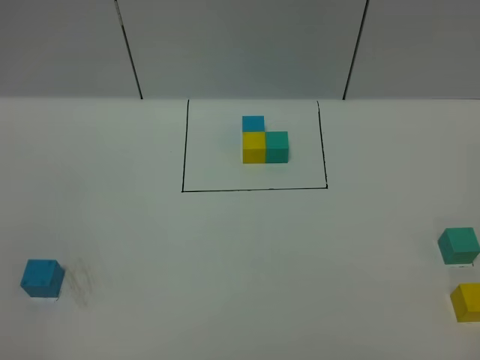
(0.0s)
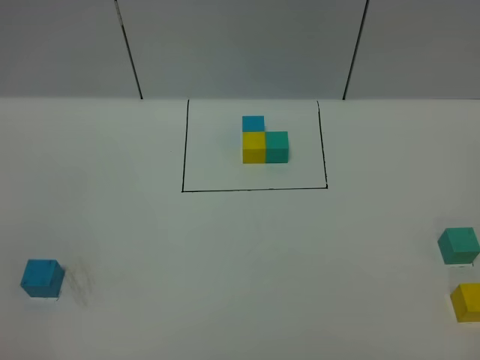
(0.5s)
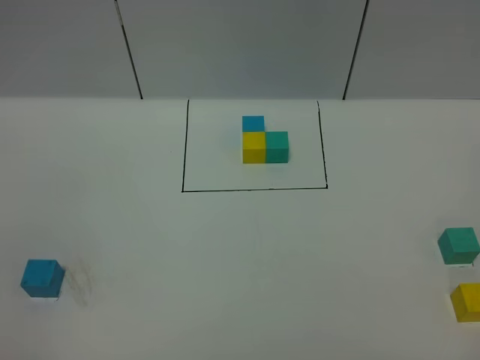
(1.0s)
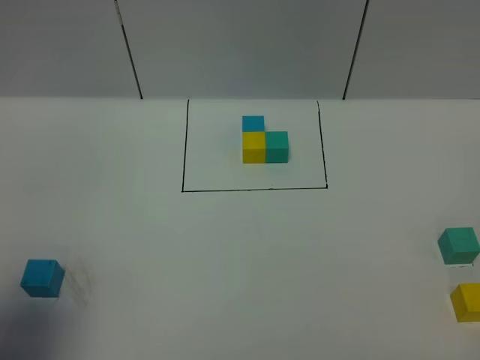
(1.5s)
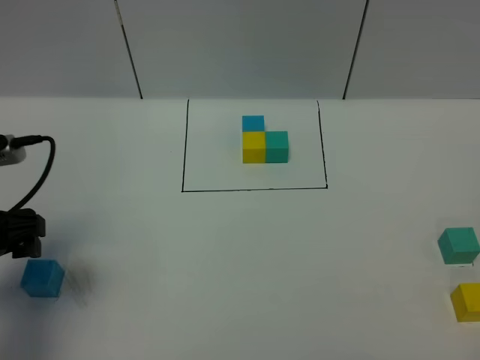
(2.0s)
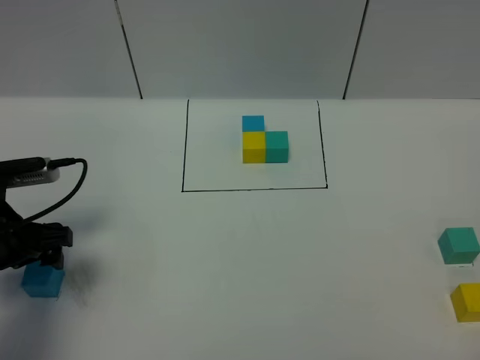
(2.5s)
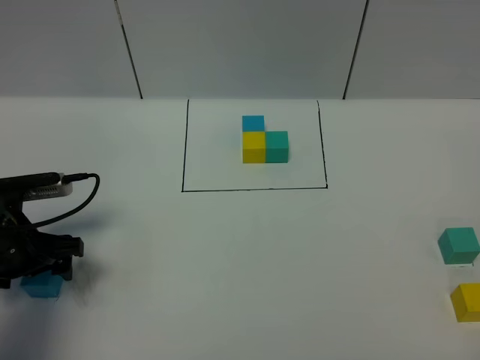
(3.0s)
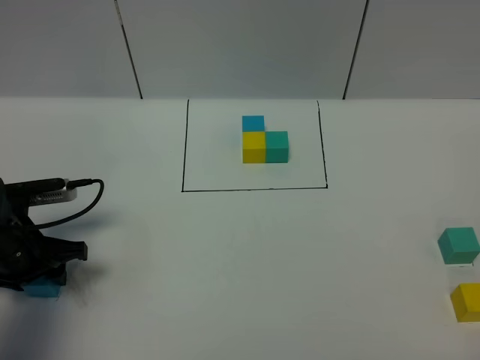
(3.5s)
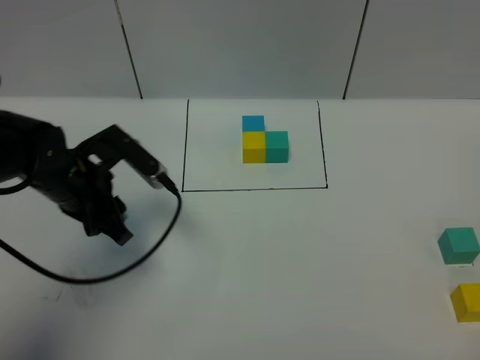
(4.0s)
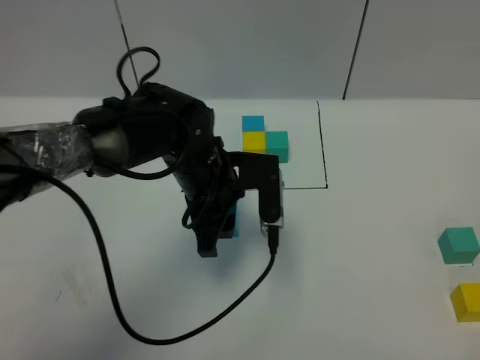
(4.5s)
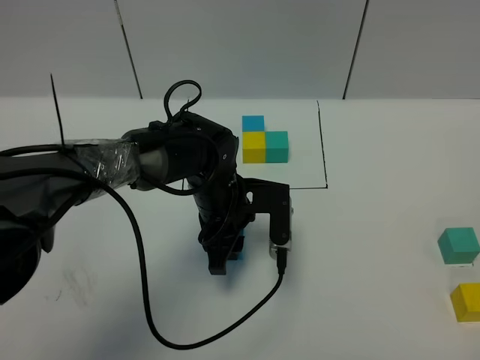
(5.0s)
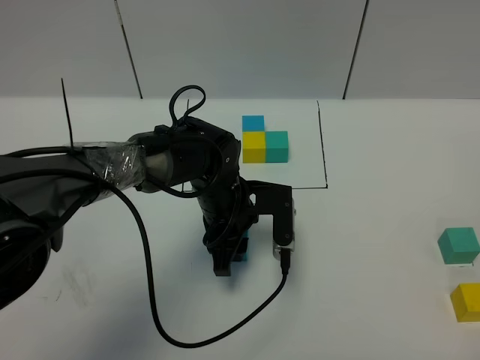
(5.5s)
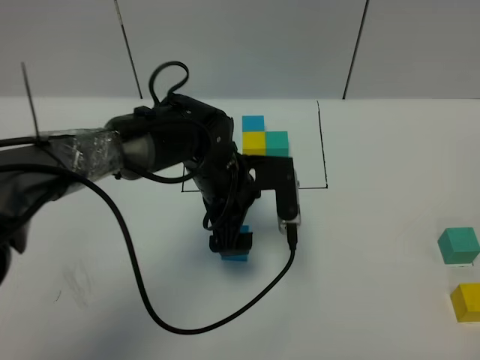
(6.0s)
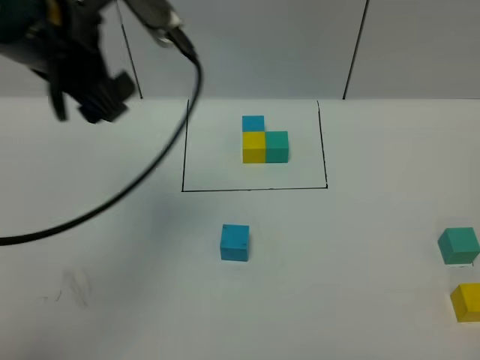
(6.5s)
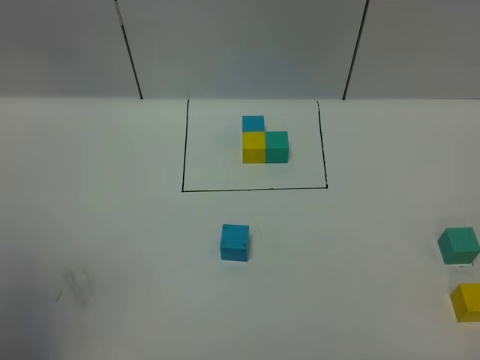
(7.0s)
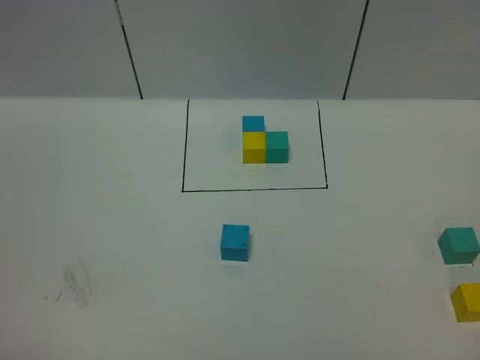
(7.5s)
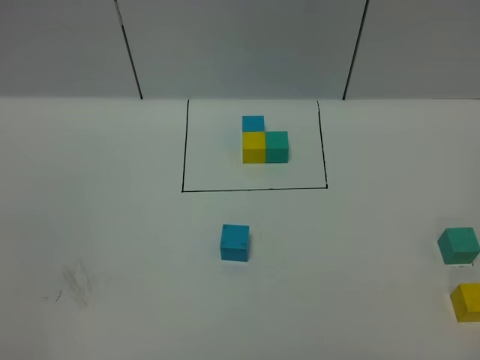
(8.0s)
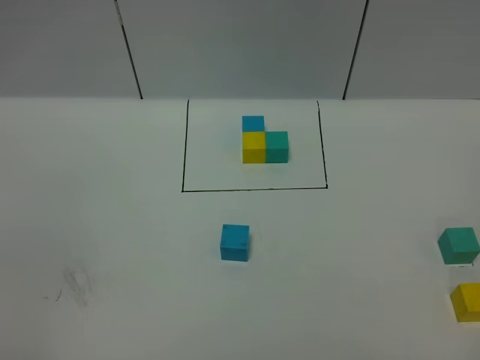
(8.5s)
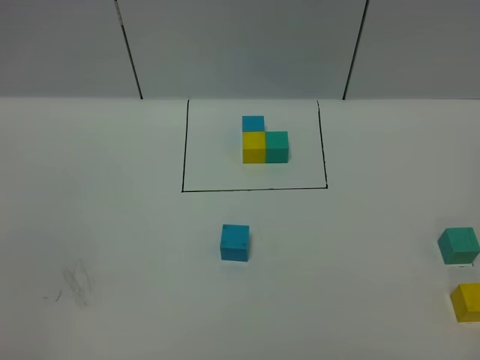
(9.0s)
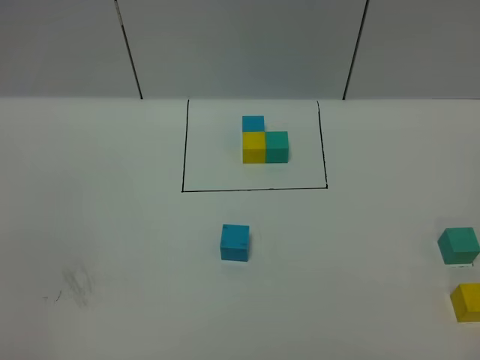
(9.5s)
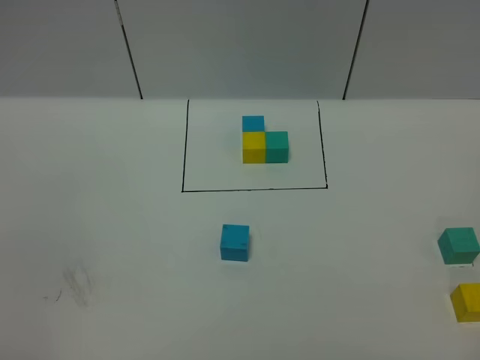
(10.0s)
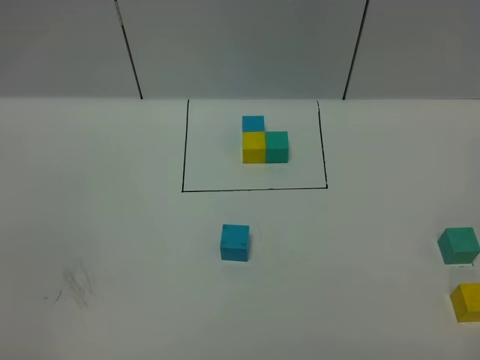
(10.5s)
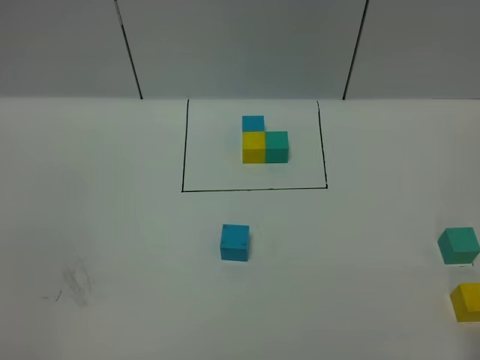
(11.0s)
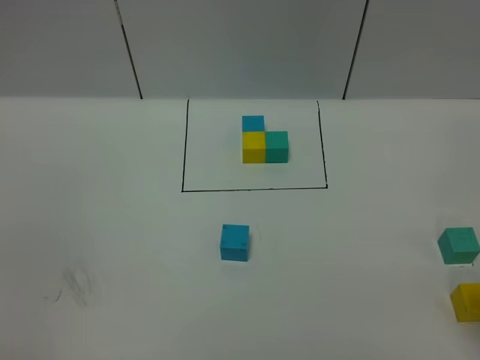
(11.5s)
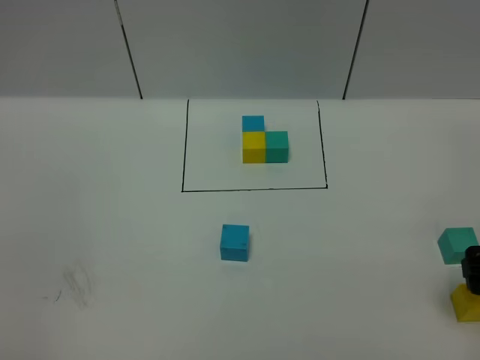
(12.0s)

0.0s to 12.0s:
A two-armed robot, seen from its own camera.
Task of the whole recording: According to the building block template in front, assemble the scattered blocks together.
Step, 2.0s to 5.5s: Put the blue cube in the center of the table.
0.0s to 2.0s: The left gripper is displaced forward by approximately 25 cm, and opens up.
2.0s to 4.0s: The left gripper shifts about 15 cm to the right and forward, and closes.
4.0s to 6.0s: The left gripper heads to the right, covering approximately 15 cm, and opens its fingers.
6.0s to 8.0s: The left gripper shifts about 50 cm backward and to the left.
10.0s to 12.0s: The right gripper travels forward by some 25 cm, and opens up.

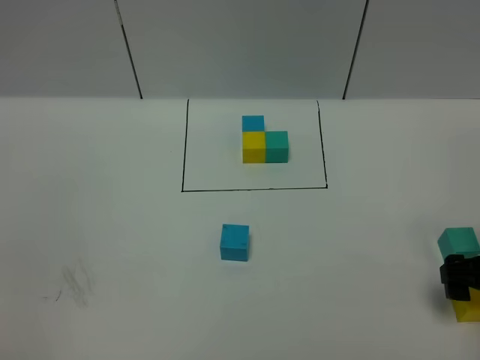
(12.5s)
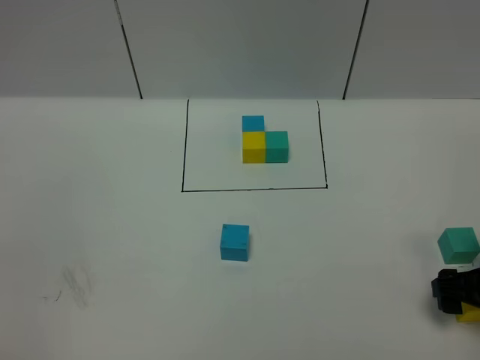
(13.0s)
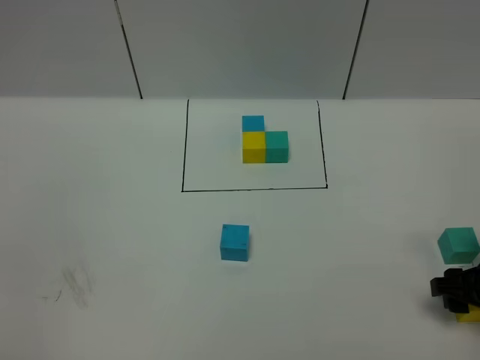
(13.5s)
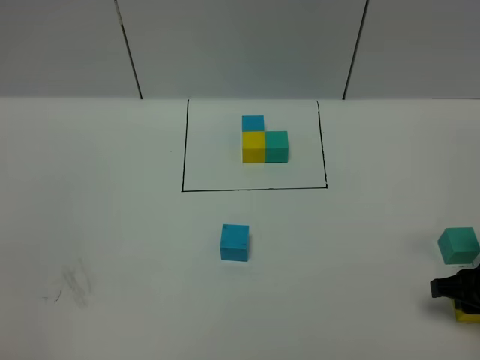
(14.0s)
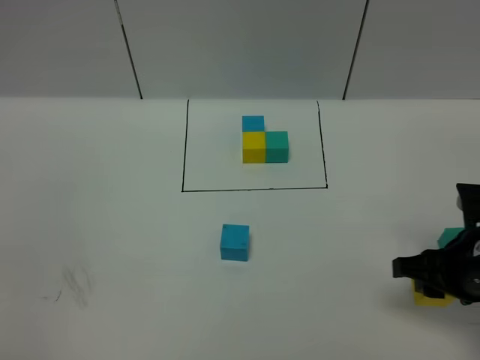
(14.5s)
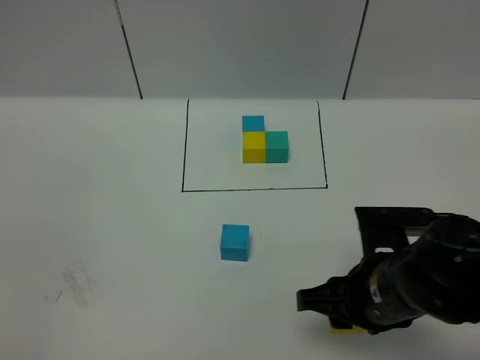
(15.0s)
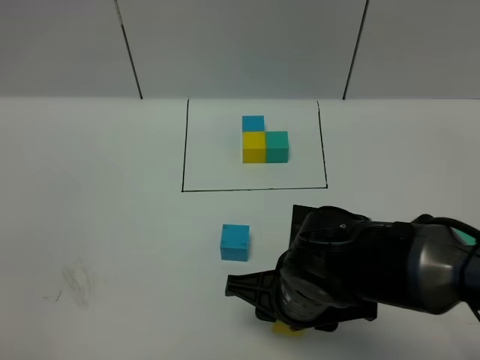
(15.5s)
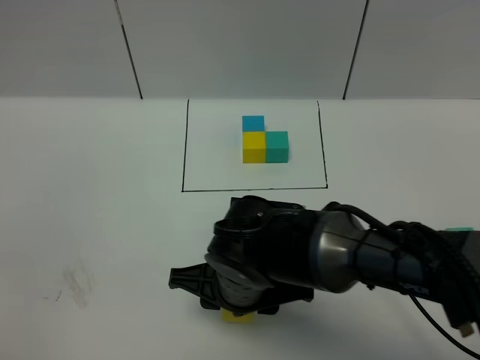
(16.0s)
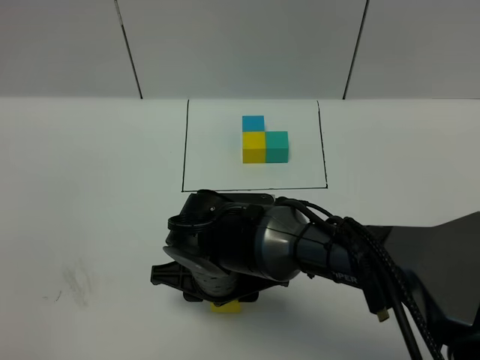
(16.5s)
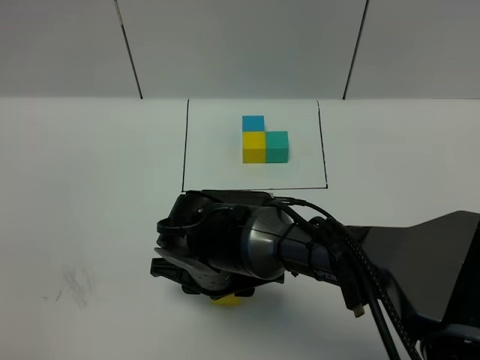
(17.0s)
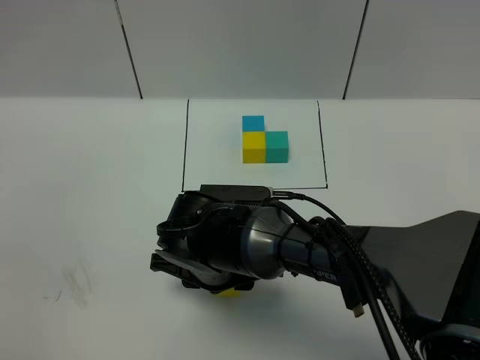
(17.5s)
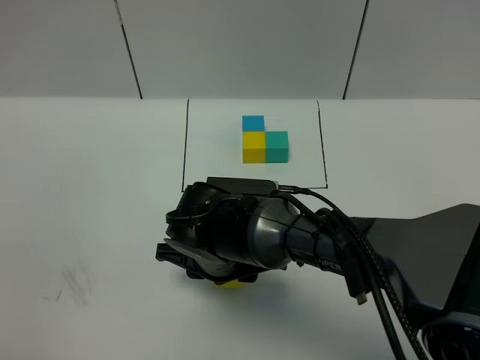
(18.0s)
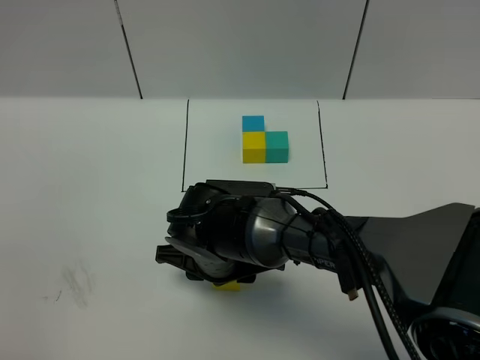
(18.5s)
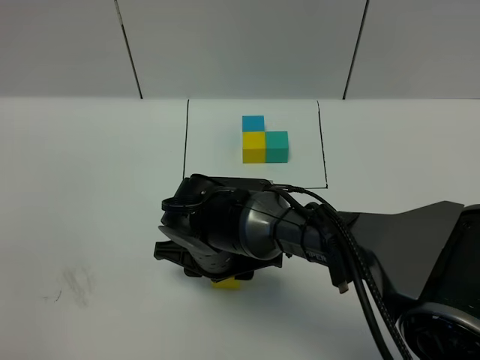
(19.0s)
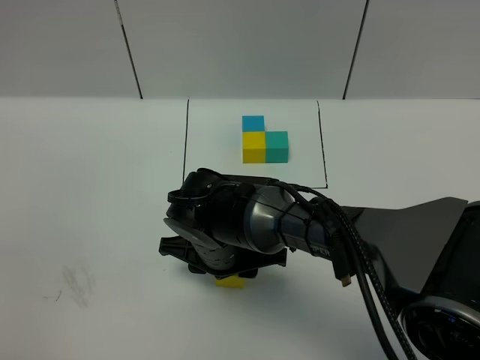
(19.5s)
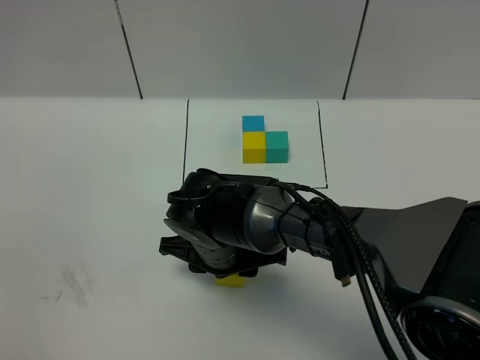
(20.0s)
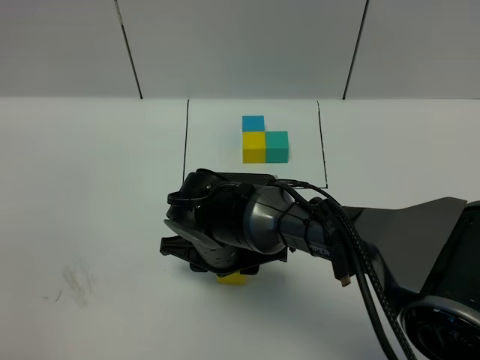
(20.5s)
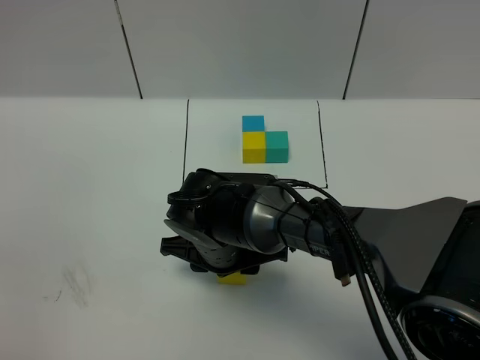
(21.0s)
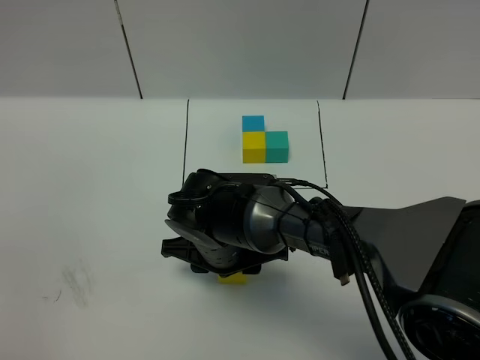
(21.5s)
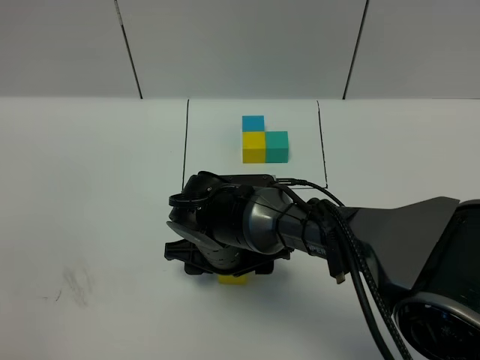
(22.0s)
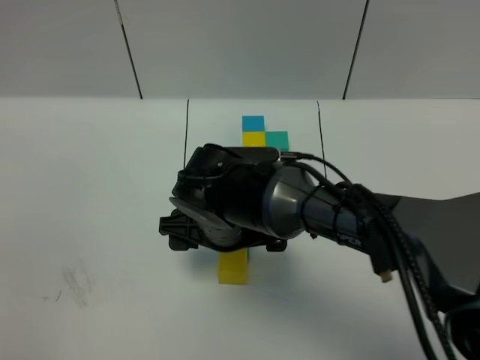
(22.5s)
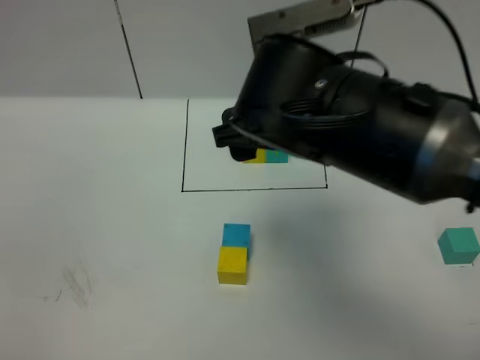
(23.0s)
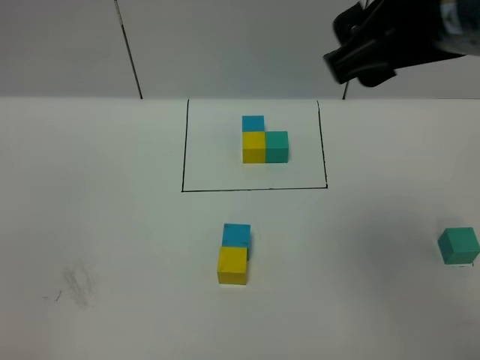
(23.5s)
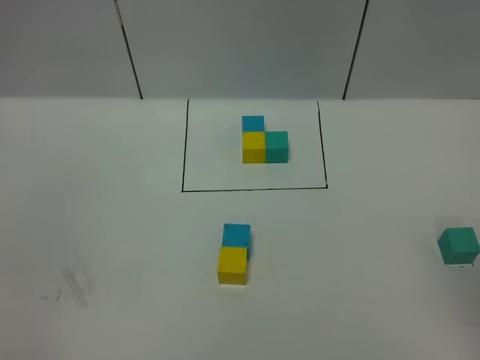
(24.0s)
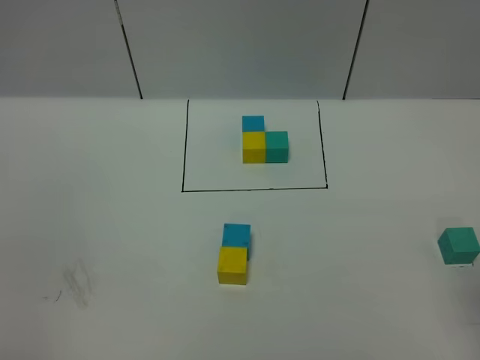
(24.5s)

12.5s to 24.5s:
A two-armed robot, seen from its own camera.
Task of the whole recording: According to the building block template in front, assemble the scattered blocks together.
Step, 12.5s to 22.0s: Put the yellow cube in the front of the blue cube.
12.5s to 14.5s: The right gripper travels to the left by roughly 5 cm, and closes.
14.5s to 16.5s: The right gripper goes about 30 cm to the left.
16.5s to 18.5s: There are only small adjustments of the grippers.
18.5s to 20.5s: Both grippers stay put.
20.5s to 22.5s: The right gripper moves upward, about 5 cm, and opens.
22.5s to 24.5s: The right gripper goes approximately 40 cm to the right, upward and backward.

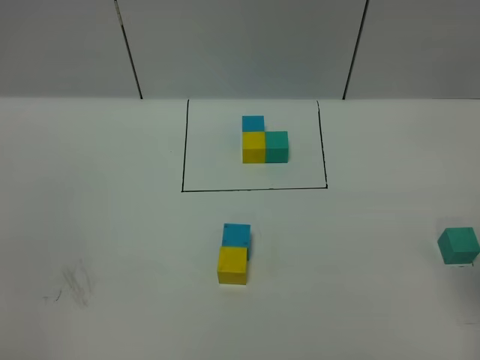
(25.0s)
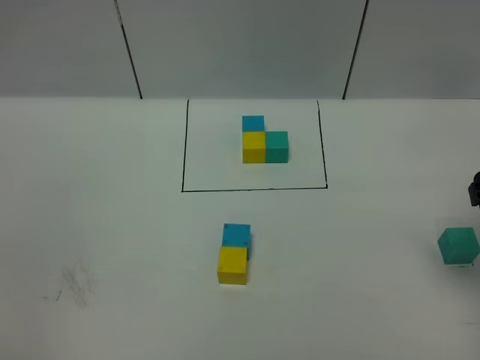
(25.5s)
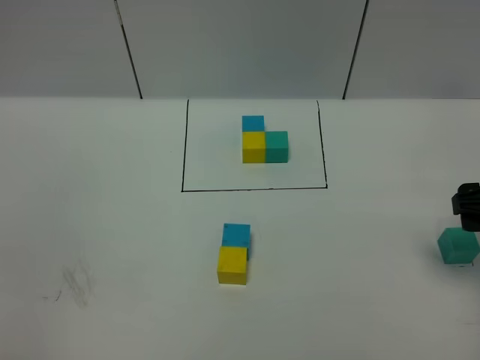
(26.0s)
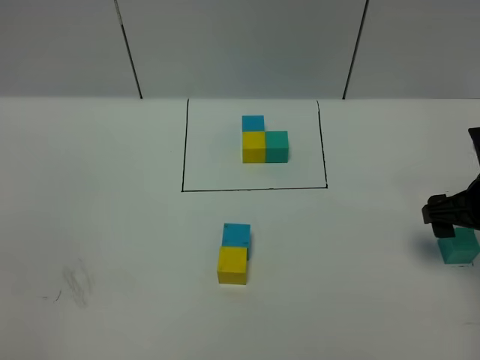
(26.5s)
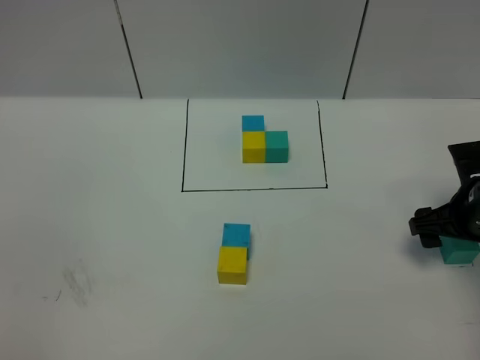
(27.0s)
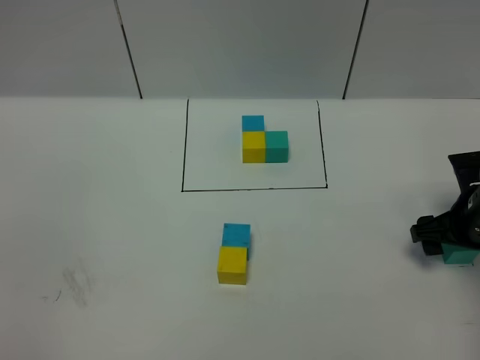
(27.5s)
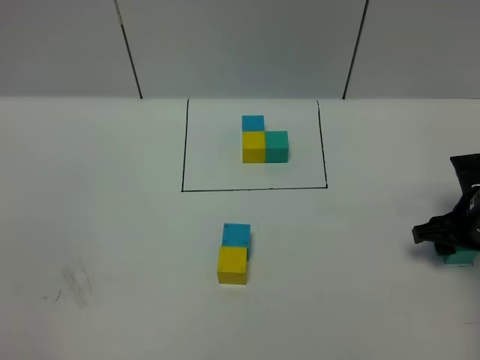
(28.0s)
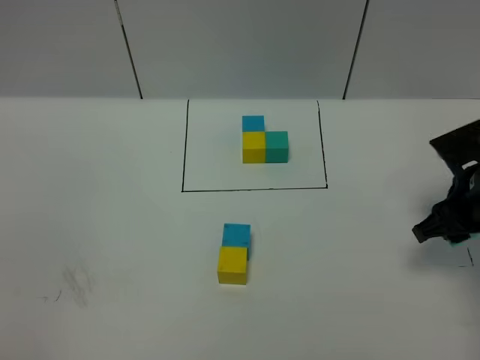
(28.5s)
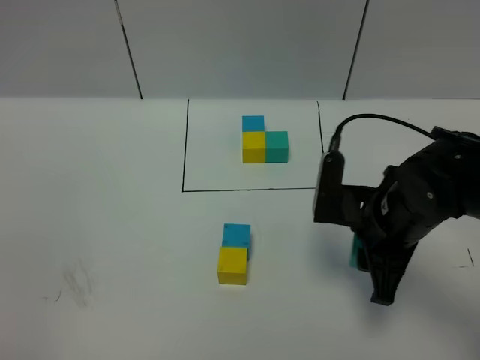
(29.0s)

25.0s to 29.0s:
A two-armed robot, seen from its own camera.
Task of the whole recording: According to the building block template in front, assemble the scattered blocks together.
25.0s to 27.0s: The right gripper shifts roughly 25 cm downward and forward.
27.0s to 29.0s: The right gripper shifts some 15 cm to the left, and closes its fingers.
